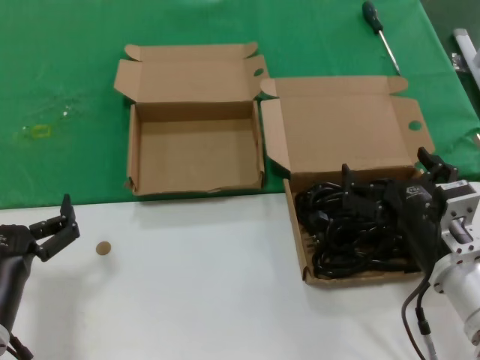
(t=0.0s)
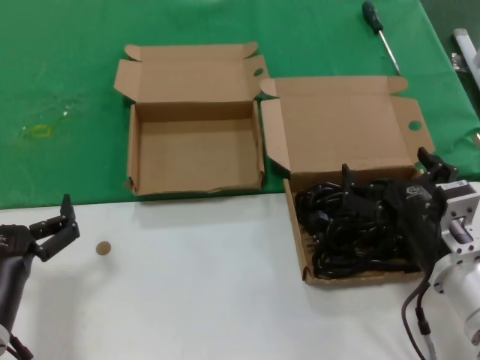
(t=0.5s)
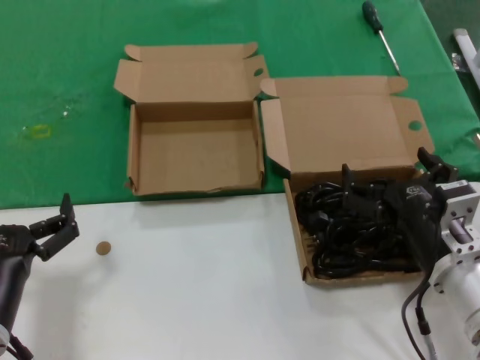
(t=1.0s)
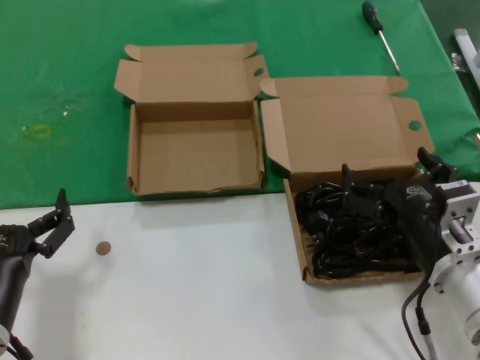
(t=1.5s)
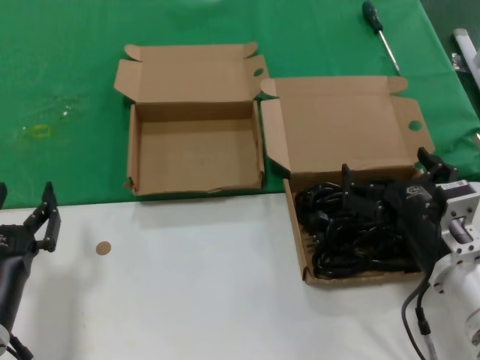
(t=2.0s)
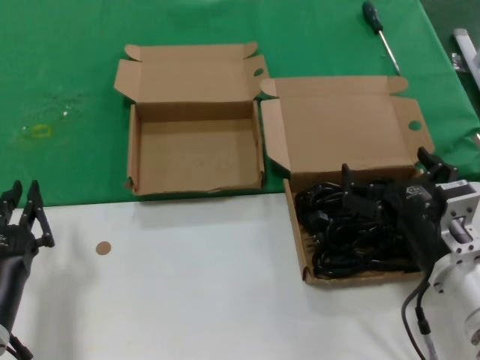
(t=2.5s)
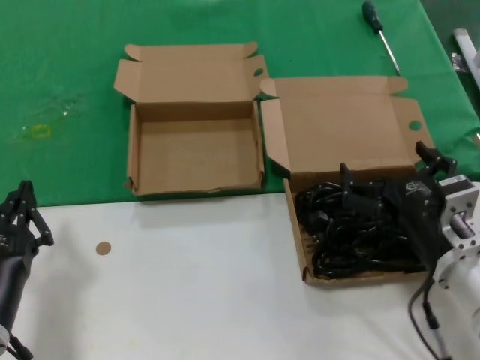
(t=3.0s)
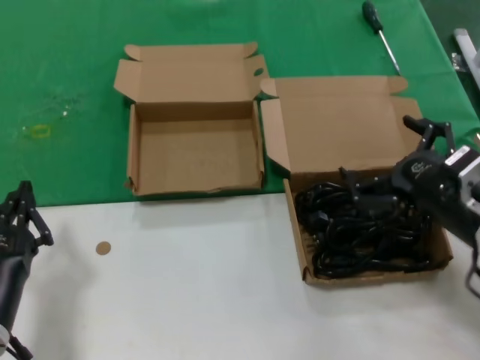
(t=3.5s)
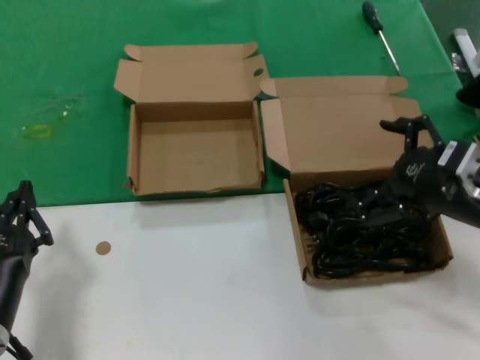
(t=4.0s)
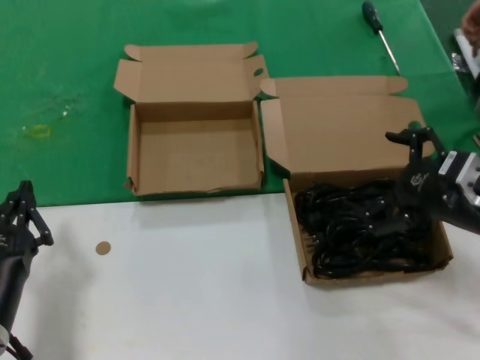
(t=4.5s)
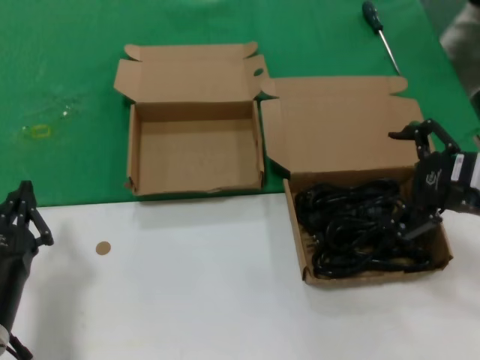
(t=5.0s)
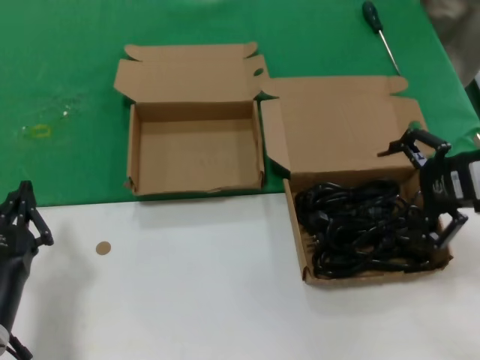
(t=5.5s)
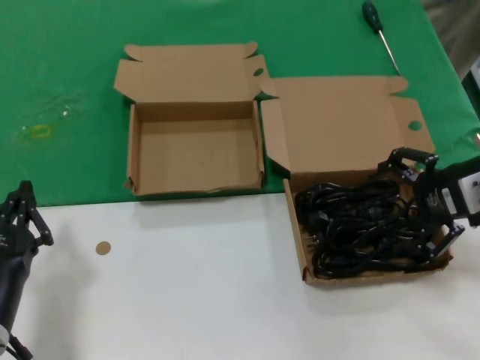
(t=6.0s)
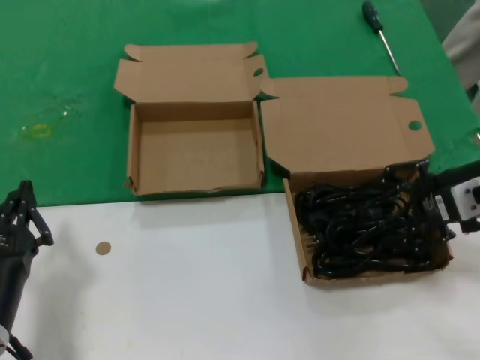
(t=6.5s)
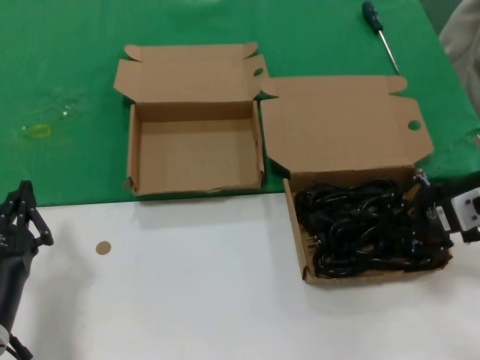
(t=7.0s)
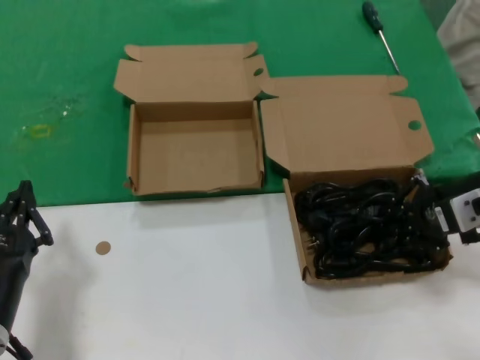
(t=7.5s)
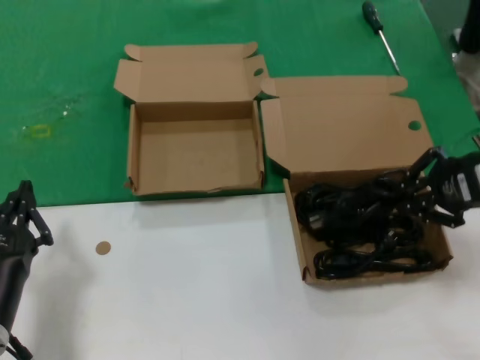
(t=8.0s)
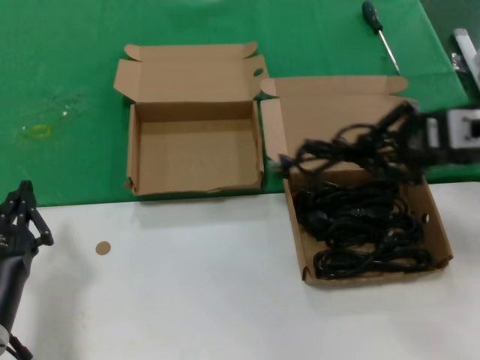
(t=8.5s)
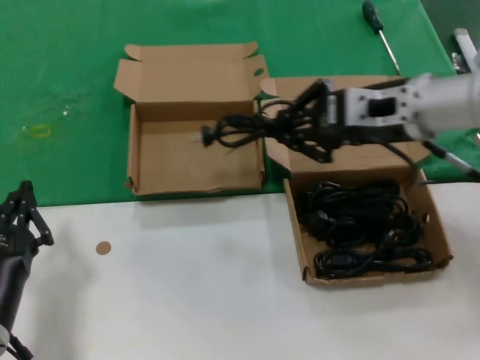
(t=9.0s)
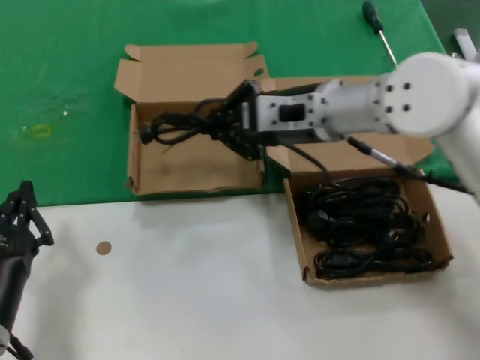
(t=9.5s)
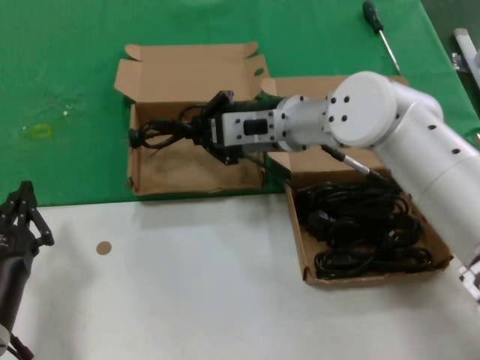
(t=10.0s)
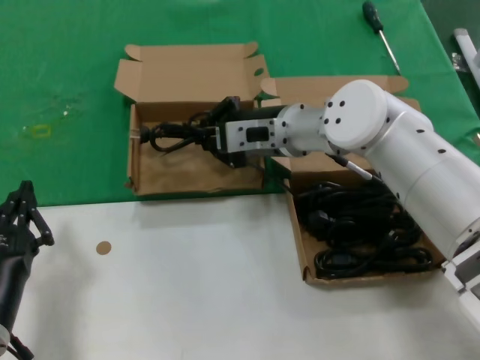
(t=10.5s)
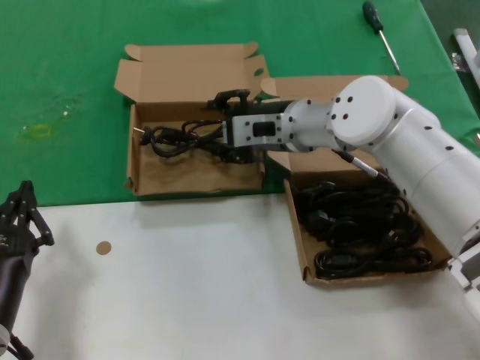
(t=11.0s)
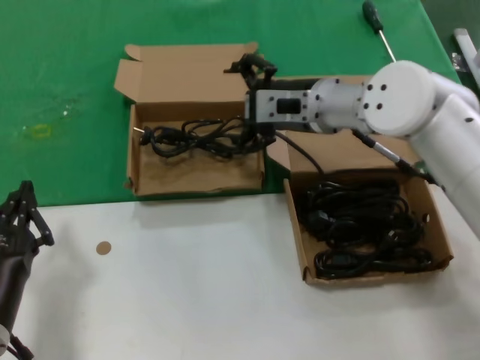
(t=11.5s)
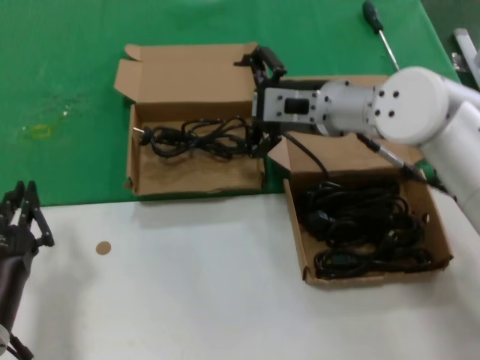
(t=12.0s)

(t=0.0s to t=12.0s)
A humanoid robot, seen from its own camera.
Task of the whole recording: take the parts from the box containing them and put them into an empty box.
Step, t=0.0s - t=7.0s: Grasp the data cable.
Step, t=7.5s - t=11.0s: Place the data cable in the another box.
t=0.0s - t=2.0s: Both hands stay put.
t=2.0s - t=4.0s: The right hand moves upward and to the right, roughly 15 cm.
t=4.0s - t=6.0s: The right hand goes approximately 10 cm forward and upward.
t=6.0s - t=8.0s: The hands stay close to where they were, moving slightly.
t=8.0s - t=10.0s: The right hand heads to the left and forward, covering roughly 30 cm.
t=10.0s - t=12.0s: The right hand moves approximately 5 cm.

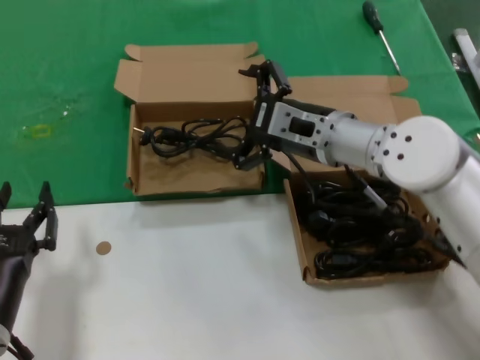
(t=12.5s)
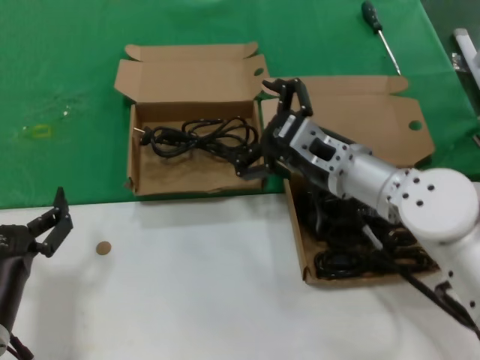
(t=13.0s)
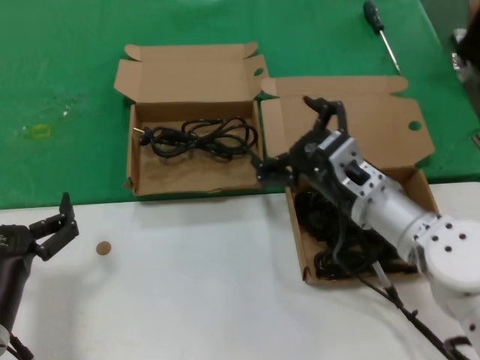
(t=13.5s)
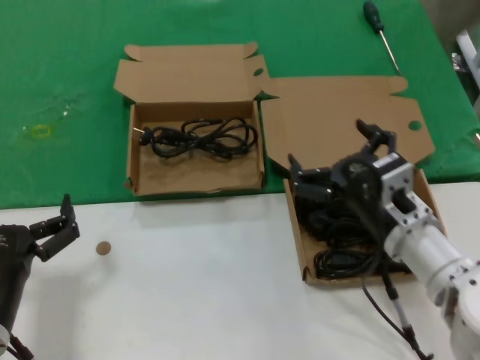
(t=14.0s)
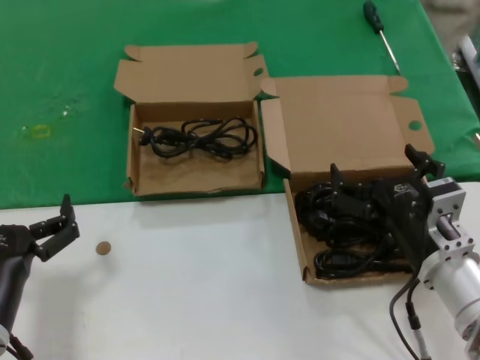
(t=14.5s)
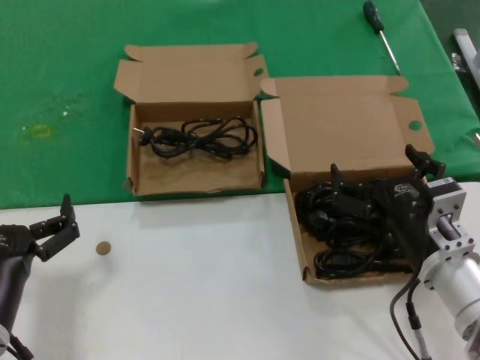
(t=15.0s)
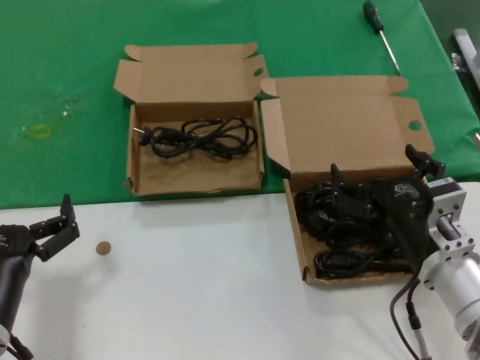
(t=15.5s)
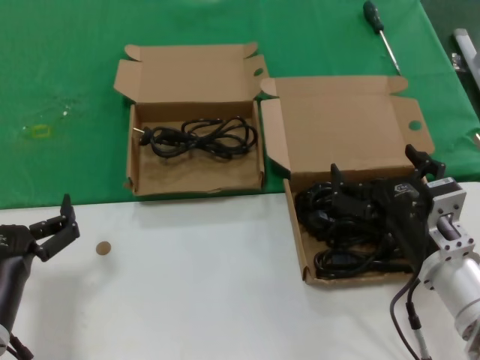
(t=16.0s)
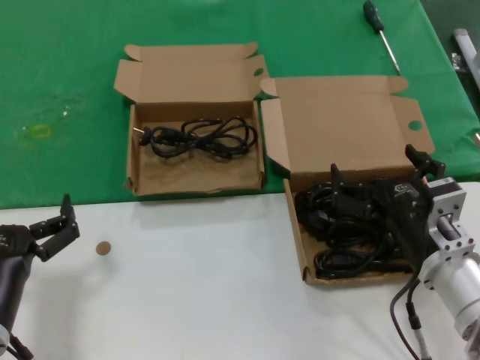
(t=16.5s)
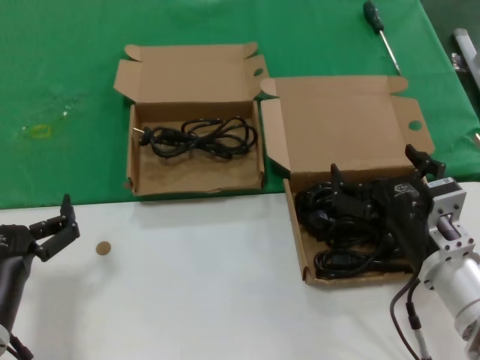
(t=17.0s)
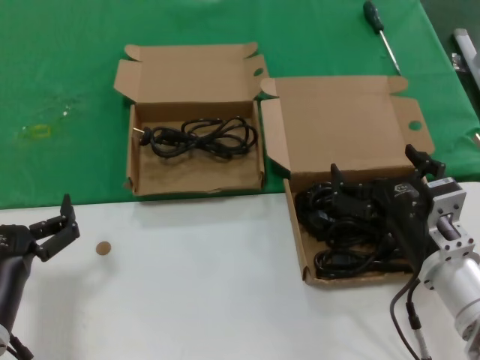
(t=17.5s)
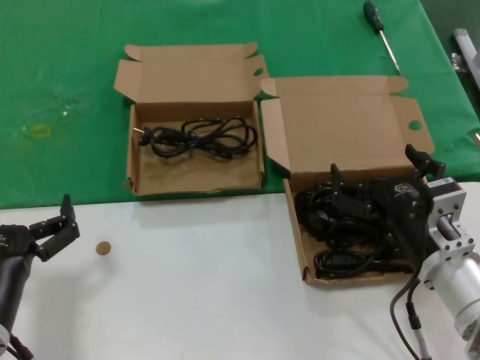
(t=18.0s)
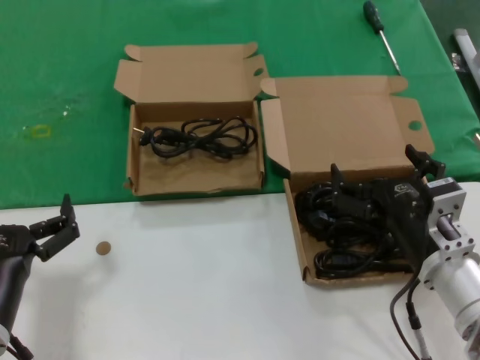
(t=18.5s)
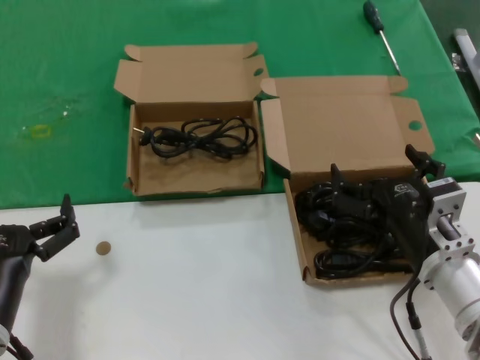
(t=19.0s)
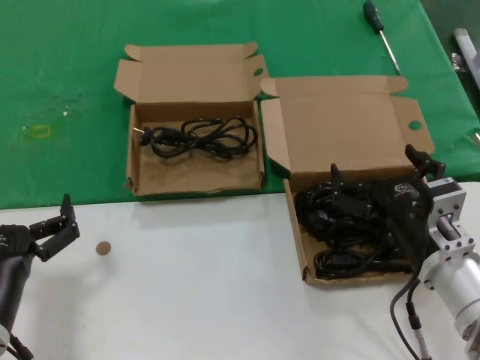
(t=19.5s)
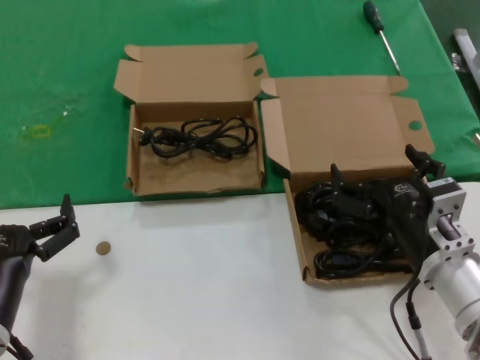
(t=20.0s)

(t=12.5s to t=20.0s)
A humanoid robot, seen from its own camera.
Task of the whole recording: take the parts from the box containing them and put them into an empty box.
t=12.5s - t=14.5s: The right hand goes approximately 20 cm backward, downward and to the right.
t=14.5s - t=20.0s: Both hands stay about where they are.

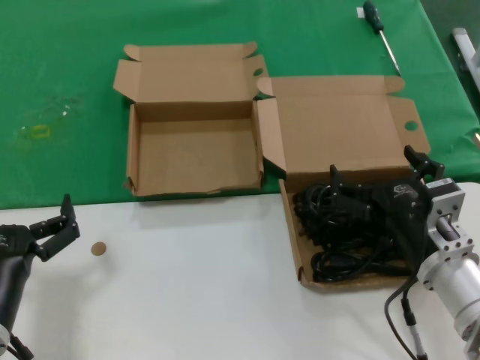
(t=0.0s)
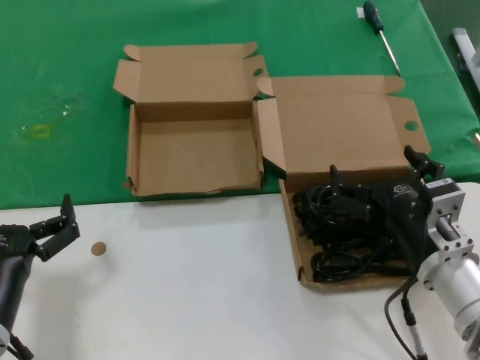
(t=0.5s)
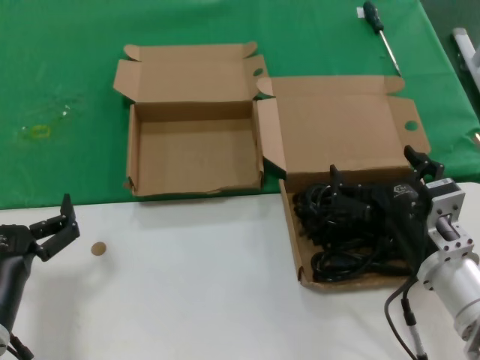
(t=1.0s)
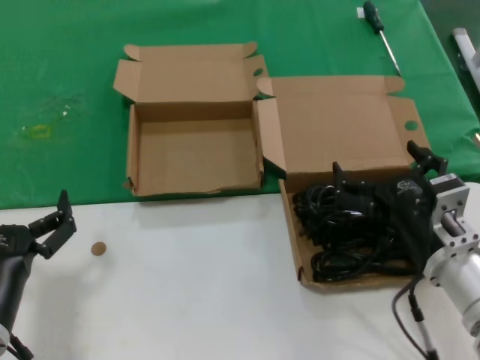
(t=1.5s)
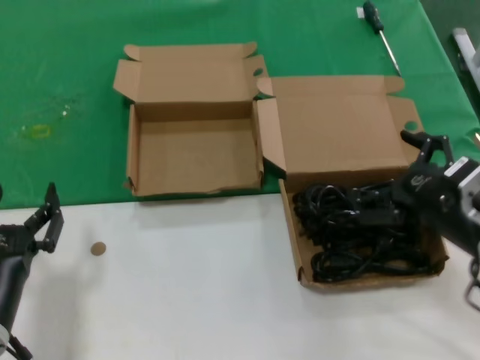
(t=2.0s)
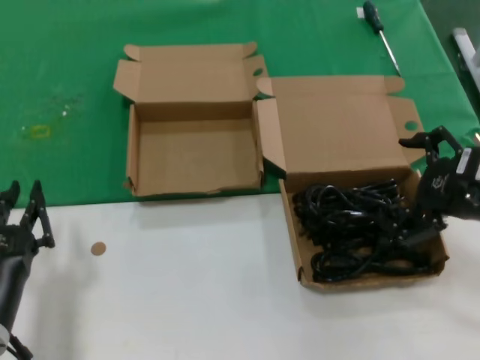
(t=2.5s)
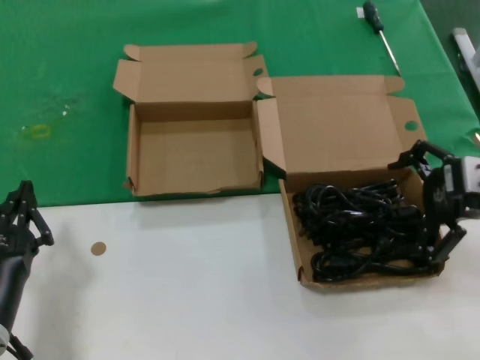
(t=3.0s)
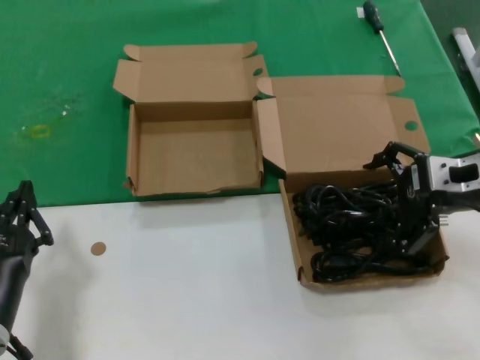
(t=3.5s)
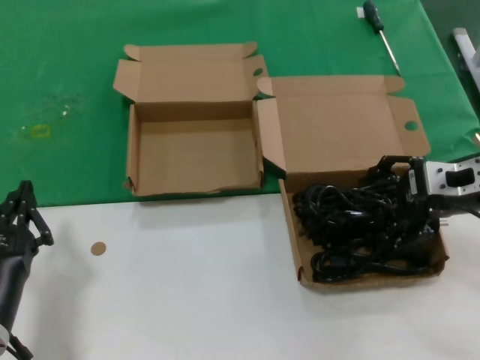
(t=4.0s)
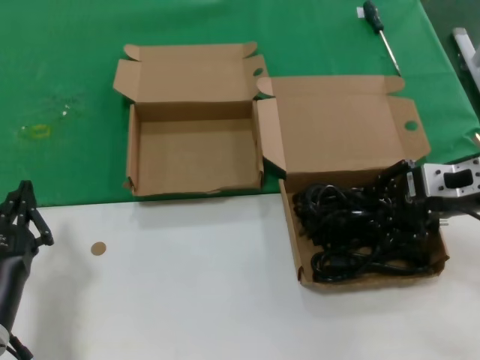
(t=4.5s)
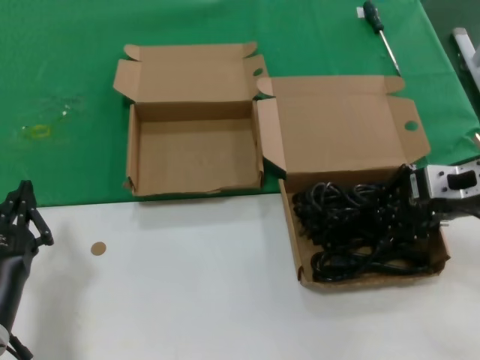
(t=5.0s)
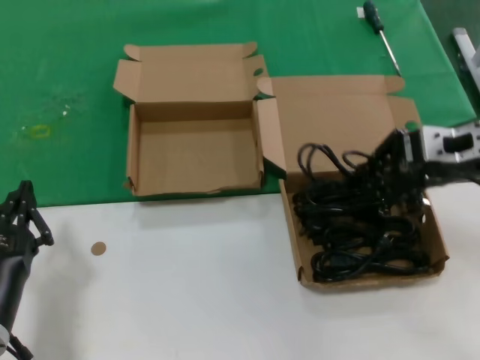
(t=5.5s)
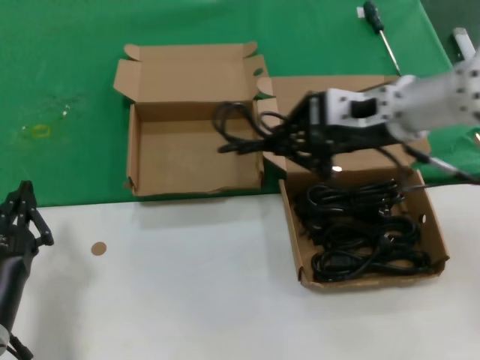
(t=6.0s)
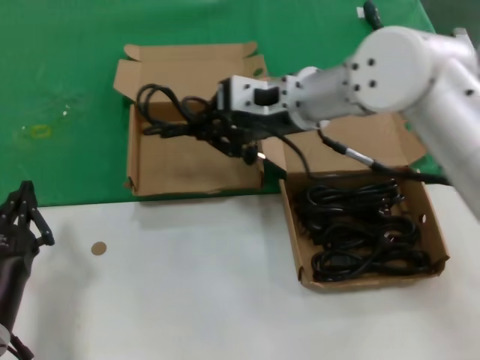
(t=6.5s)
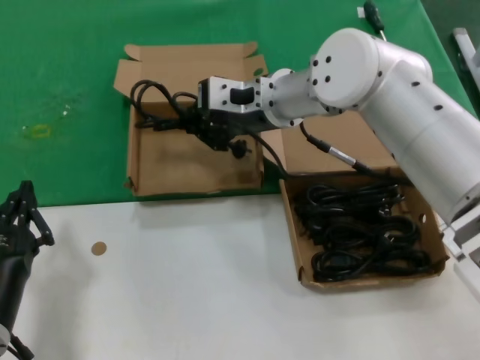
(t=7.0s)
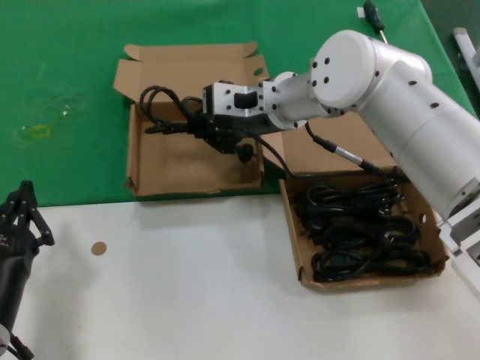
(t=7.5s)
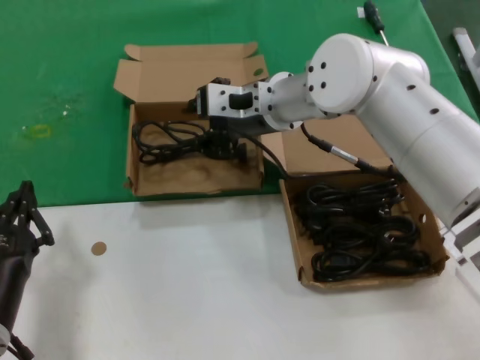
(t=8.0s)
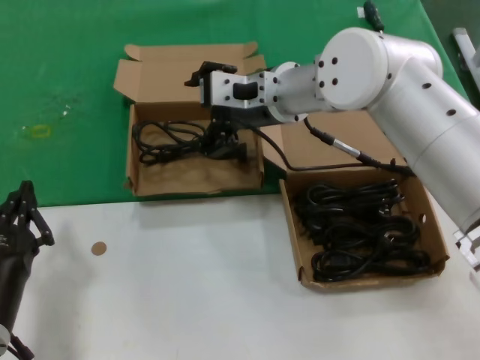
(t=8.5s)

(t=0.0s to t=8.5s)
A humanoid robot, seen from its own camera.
Task of the whole recording: take the parts from the box containing them and put them into an empty box.
Step, t=0.0s - t=4.5s: Grasp the data cable.
Step, t=5.0s - t=8.0s: Place the data cable in the another box.
t=0.0s - t=2.0s: The right hand heads to the right and upward, covering some 10 cm.
t=2.0s - t=4.0s: The right hand heads forward and upward, covering approximately 15 cm.
t=4.0s - t=6.5s: The right hand moves to the left, roughly 20 cm.
t=6.5s - t=8.5s: The hands make only small movements.
